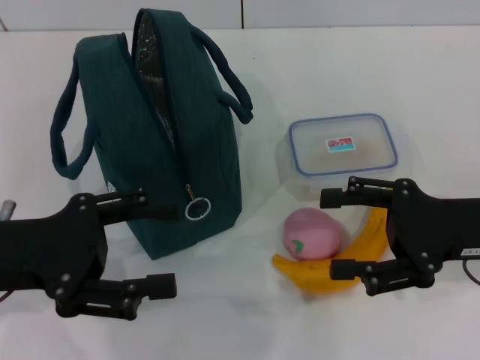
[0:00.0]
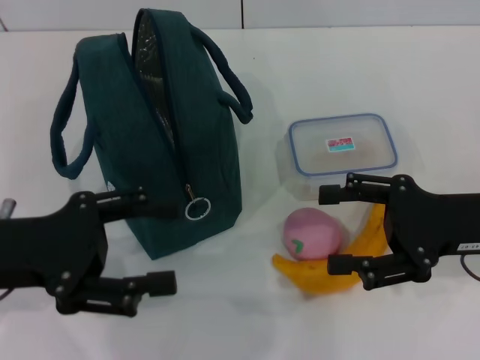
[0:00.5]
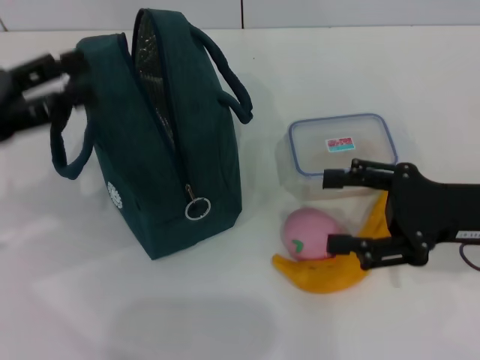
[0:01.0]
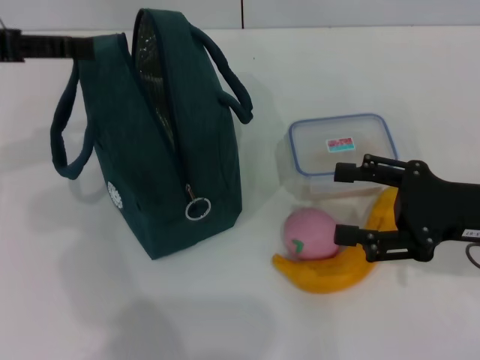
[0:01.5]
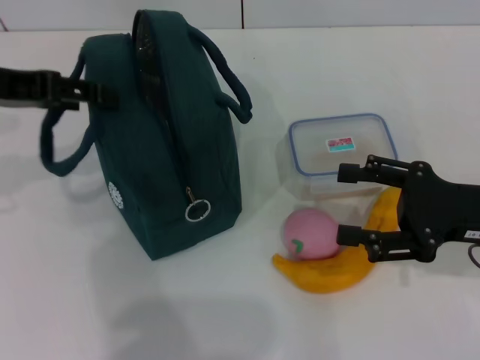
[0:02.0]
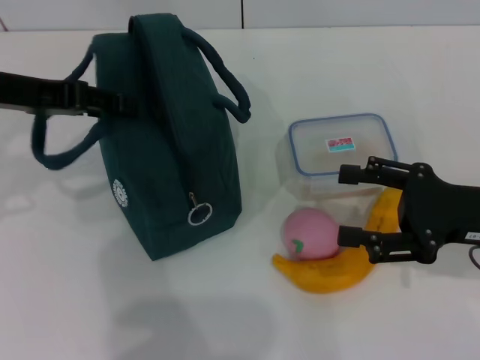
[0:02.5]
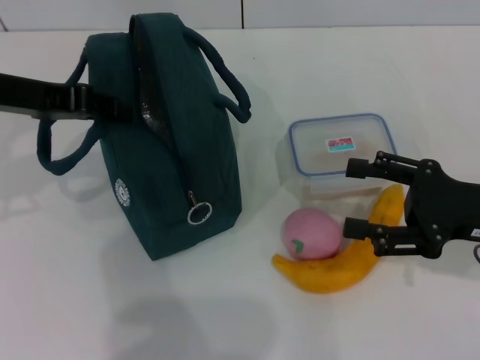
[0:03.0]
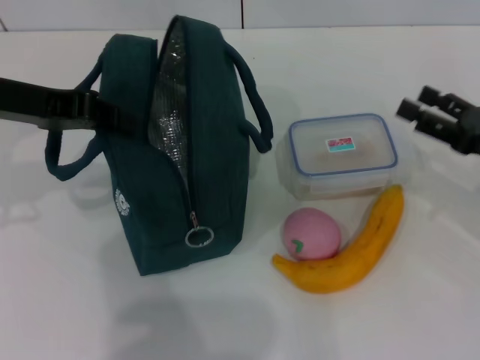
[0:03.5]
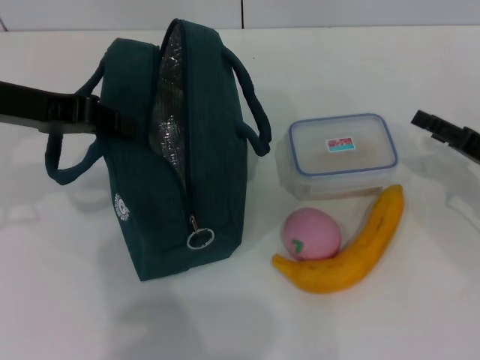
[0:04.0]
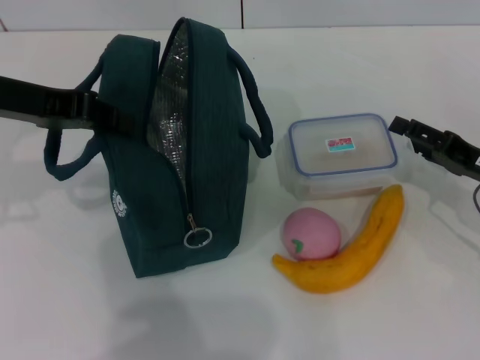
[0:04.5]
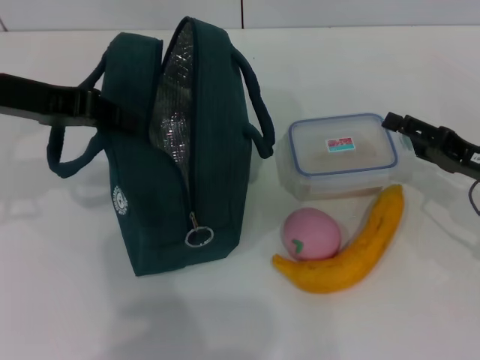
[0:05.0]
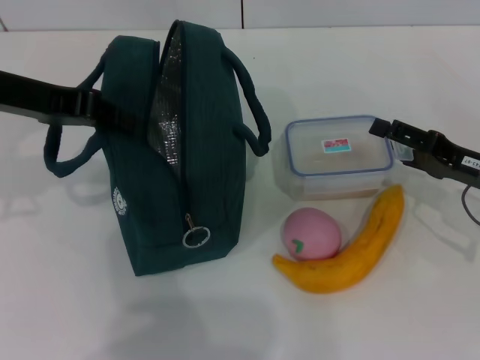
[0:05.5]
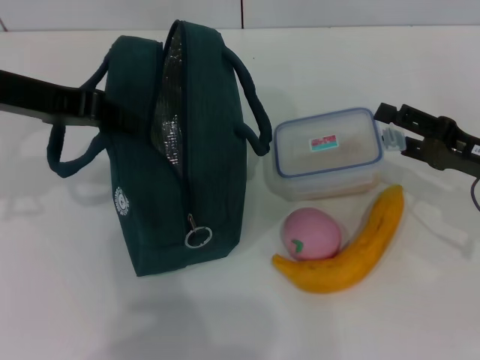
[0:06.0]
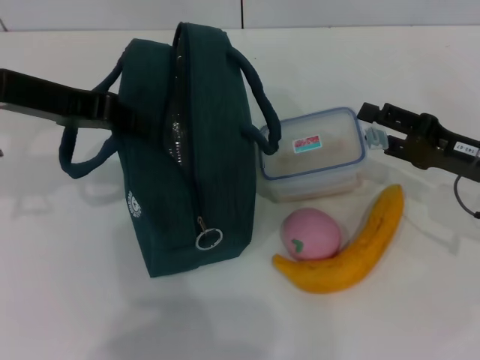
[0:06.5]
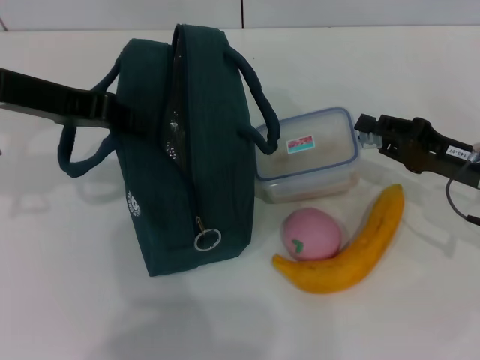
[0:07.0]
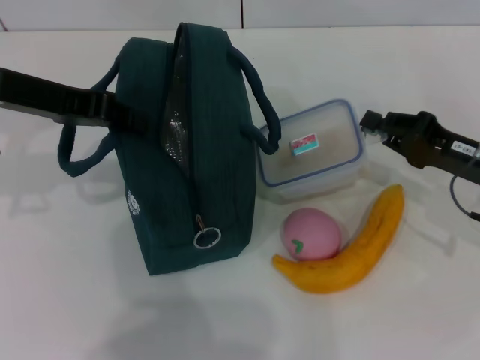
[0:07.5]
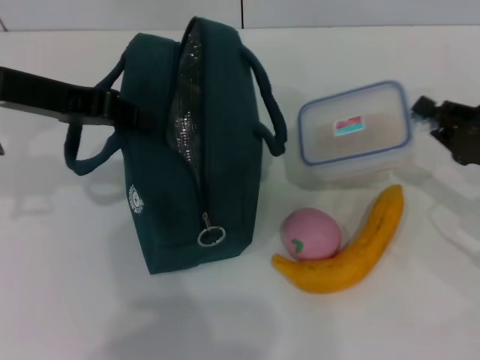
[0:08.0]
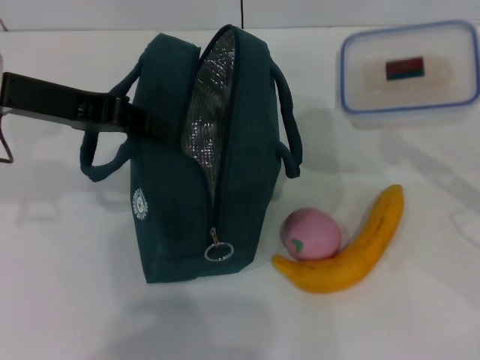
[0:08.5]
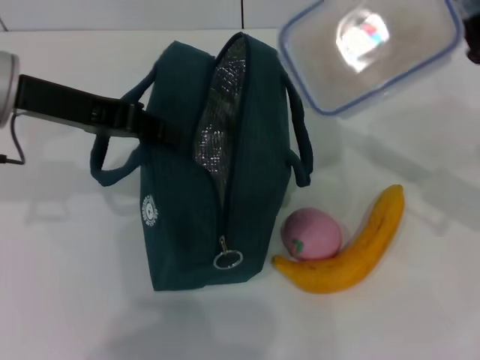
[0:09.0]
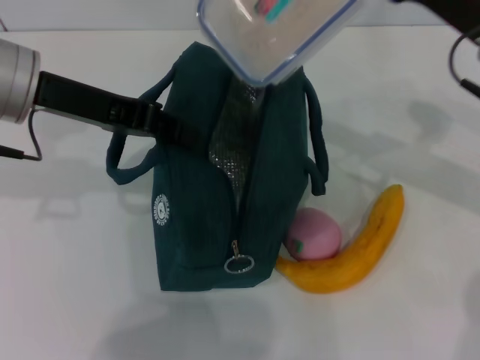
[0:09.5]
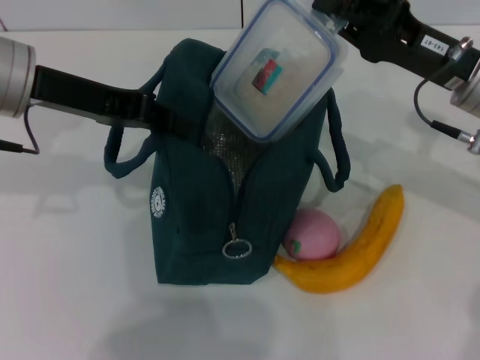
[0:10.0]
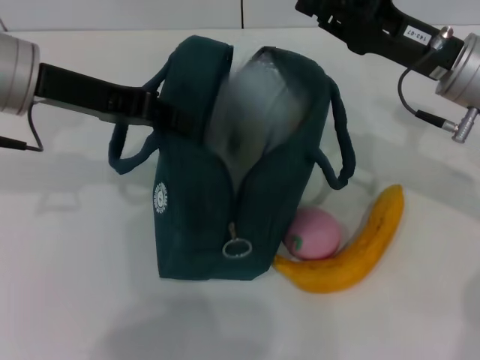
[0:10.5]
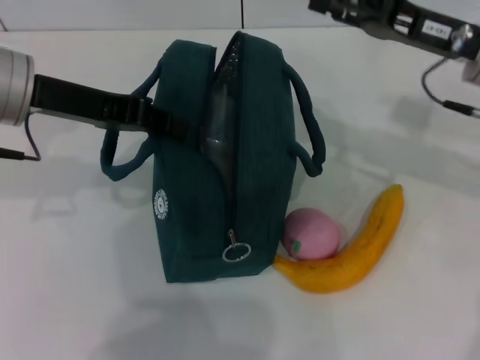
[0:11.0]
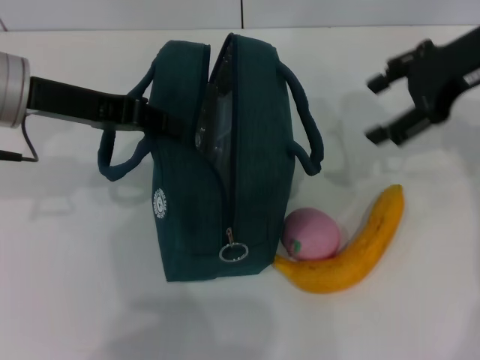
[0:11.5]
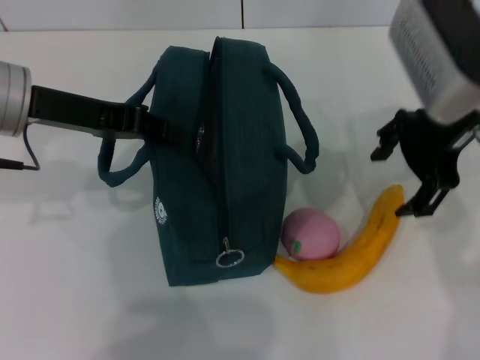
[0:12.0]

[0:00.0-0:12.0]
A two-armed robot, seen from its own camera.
Step, 0:00.0 to 0:03.0: Hold the lunch bag with your left hand.
Step, 0:03.5 to 0:07.0: Pick up the lunch box with your right hand.
Step, 0:07.5 to 0:10.5: Place the lunch box into the lunch bag with your right hand.
0:00.0 to 0:02.0: The left gripper heads forward and upward, covering approximately 15 cm.
0:02.0 to 0:04.0: The right gripper shifts about 10 cm to the right and downward, while the left gripper closes up.
0:06.0 to 0:08.0: The right gripper closes its fingers.
0:08.0 to 0:10.0: The right gripper goes about 15 cm to the left, upward and forward.
0:10.0 to 0:12.0: The right gripper heads upward, covering approximately 10 cm, and opens.

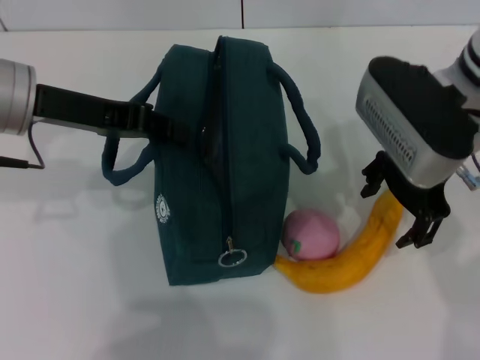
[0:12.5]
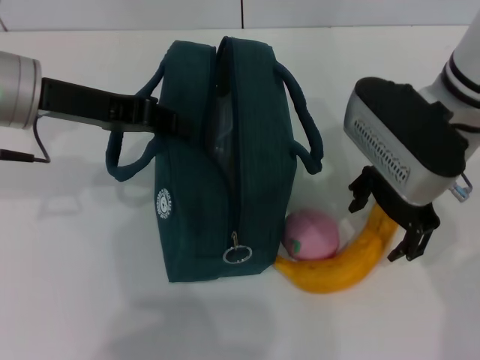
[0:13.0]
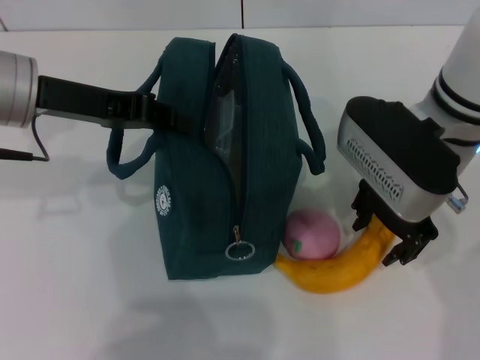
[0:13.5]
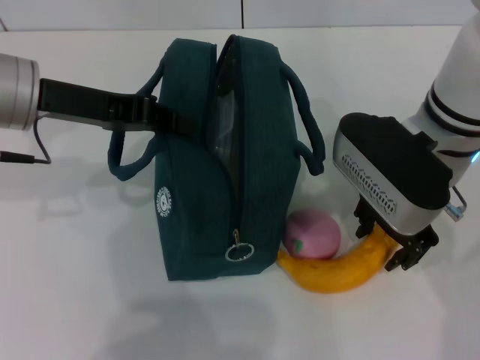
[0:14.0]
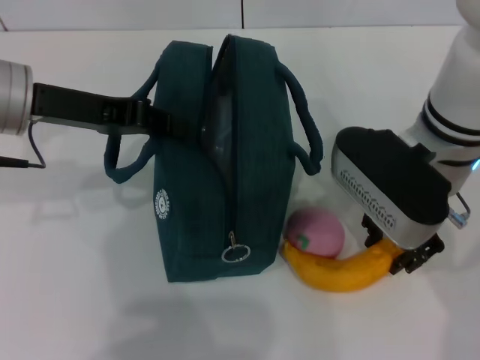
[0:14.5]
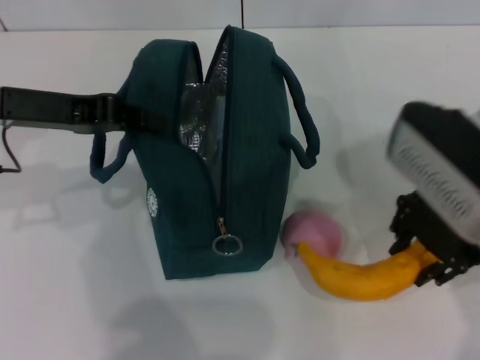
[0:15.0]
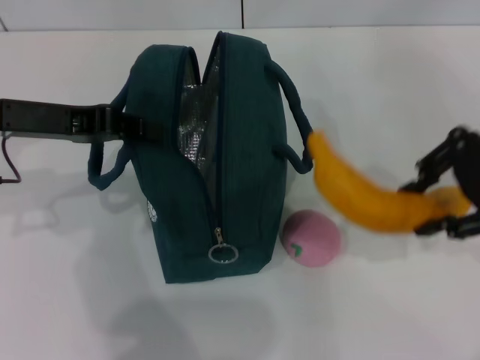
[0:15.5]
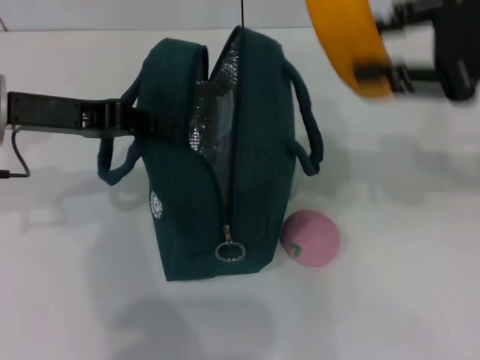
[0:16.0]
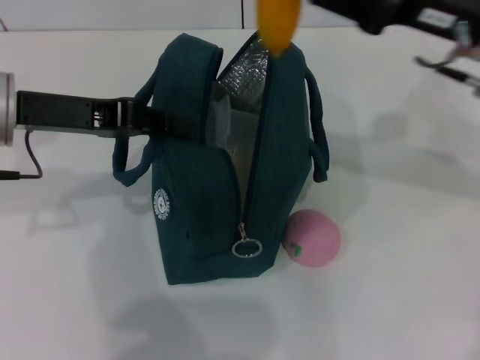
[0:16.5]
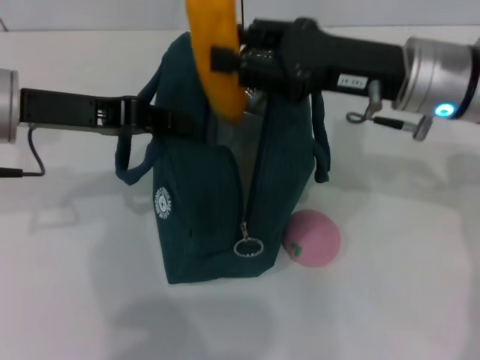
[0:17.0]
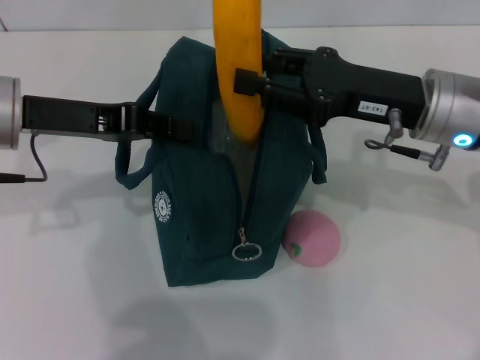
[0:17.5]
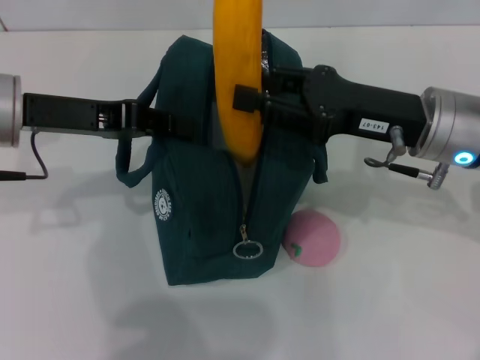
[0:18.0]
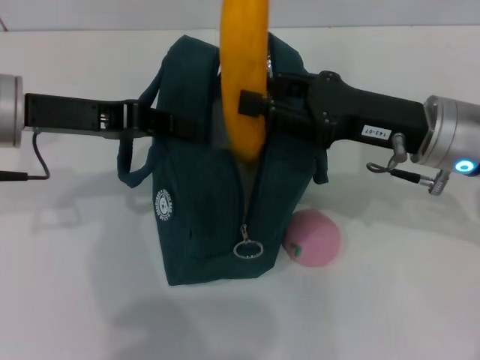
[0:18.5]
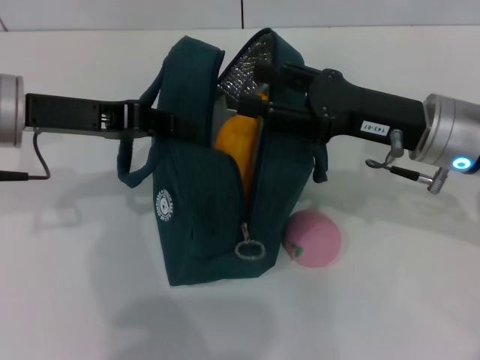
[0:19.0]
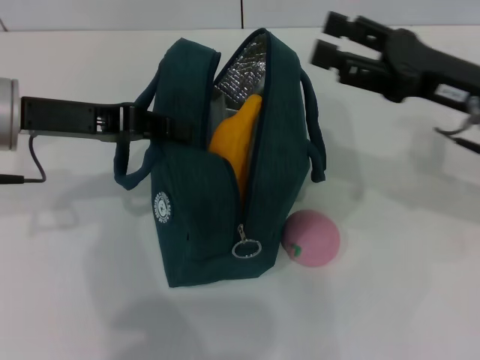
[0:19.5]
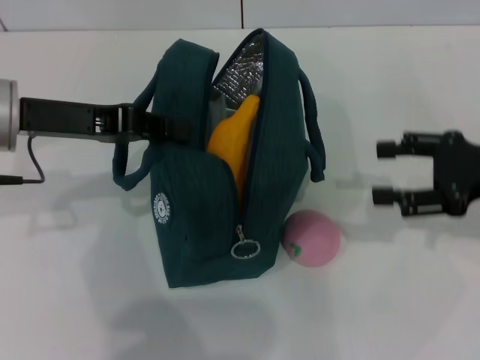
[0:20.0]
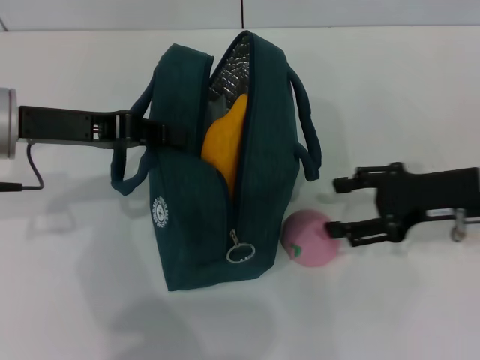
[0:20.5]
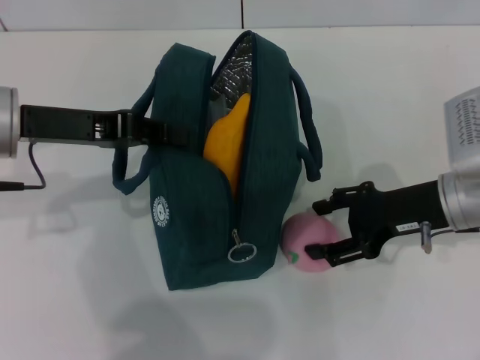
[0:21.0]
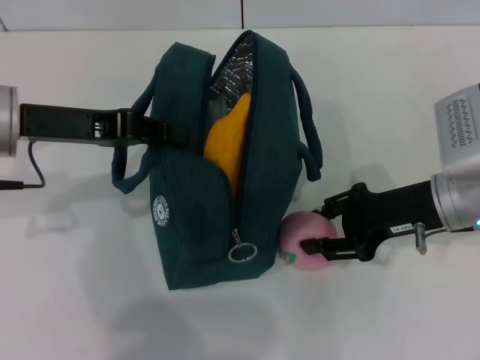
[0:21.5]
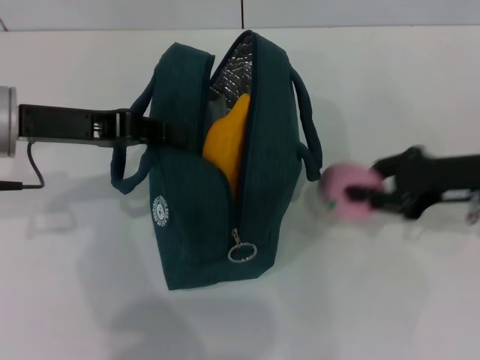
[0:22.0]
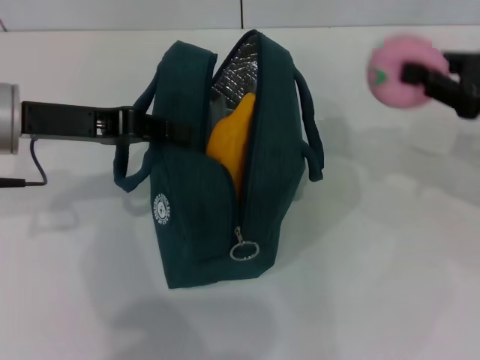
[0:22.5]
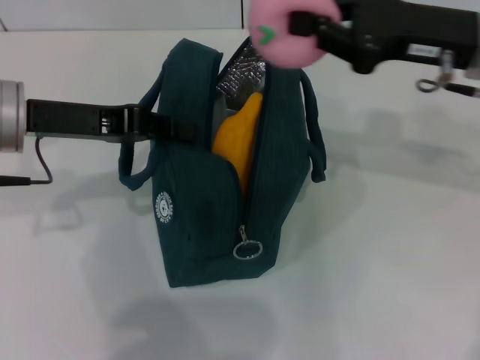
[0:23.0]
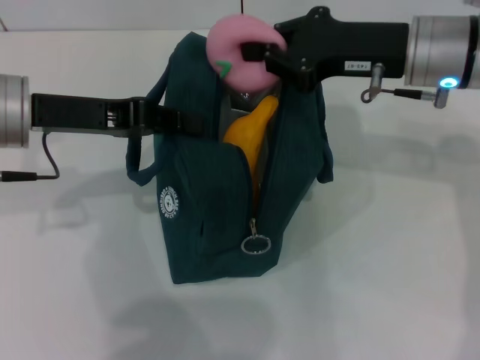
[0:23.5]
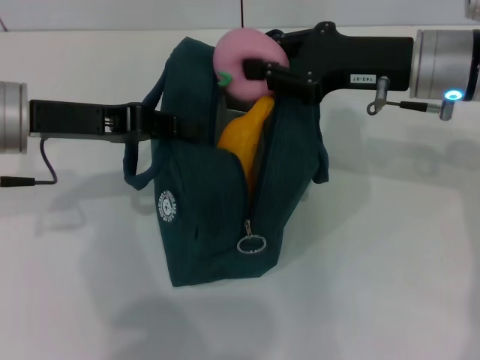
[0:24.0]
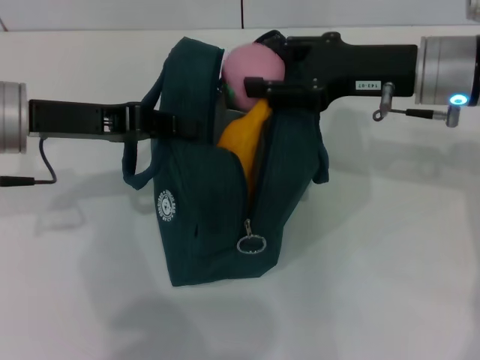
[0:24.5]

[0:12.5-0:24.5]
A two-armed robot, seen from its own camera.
Step, 0:14.5 to 0:19.0: Put the banana into the lunch bag with your right hand.
Step, 0:19.5 to 0:21.5: Grab the peach with your right hand.
0:12.5 to 0:14.5: The right gripper closes up.
0:14.5 to 0:16.5: The right gripper travels to the right by approximately 5 cm.
0:16.5 to 0:18.5: The right gripper moves downward, approximately 10 cm.
0:18.5 to 0:20.5: The right gripper heads to the right, covering roughly 5 cm, and opens up.
0:20.5 to 0:22.5: The right gripper shifts roughly 10 cm upward and to the right, and closes its fingers.
0:22.5 to 0:24.5: The right gripper is displaced to the left by approximately 15 cm.

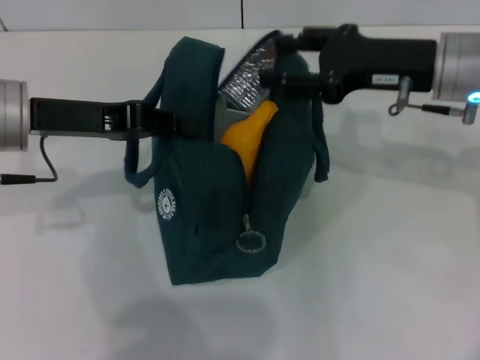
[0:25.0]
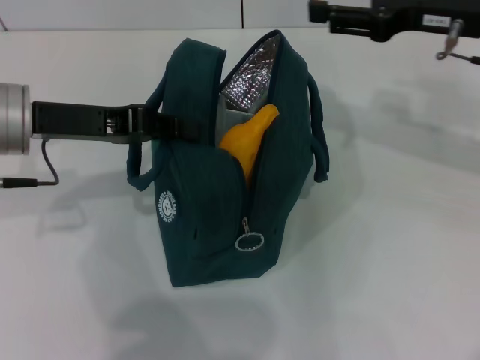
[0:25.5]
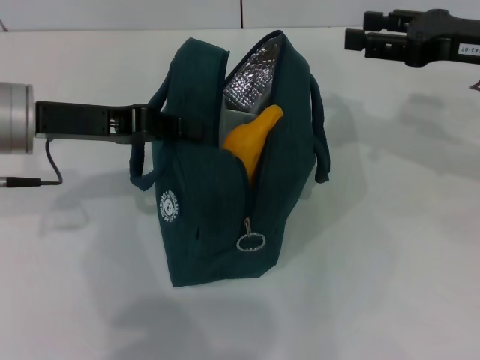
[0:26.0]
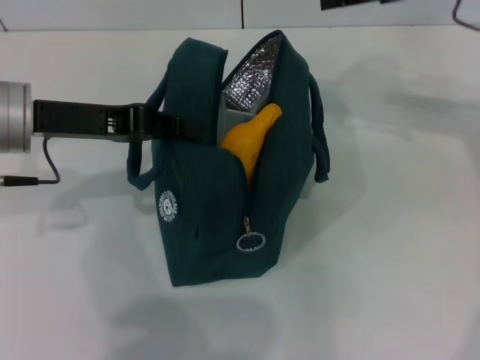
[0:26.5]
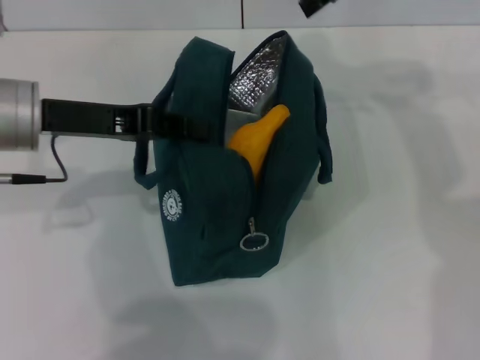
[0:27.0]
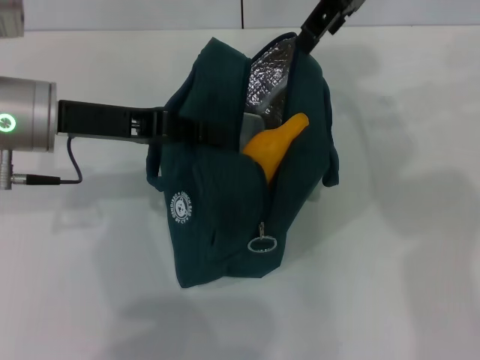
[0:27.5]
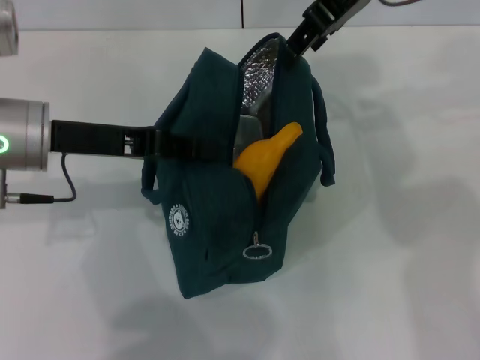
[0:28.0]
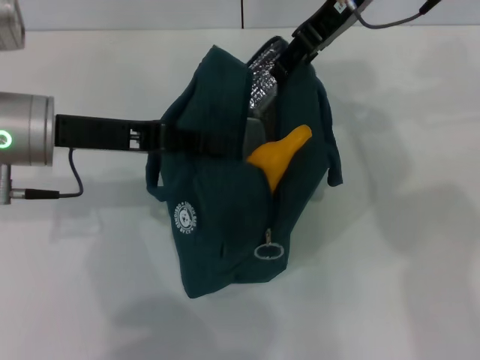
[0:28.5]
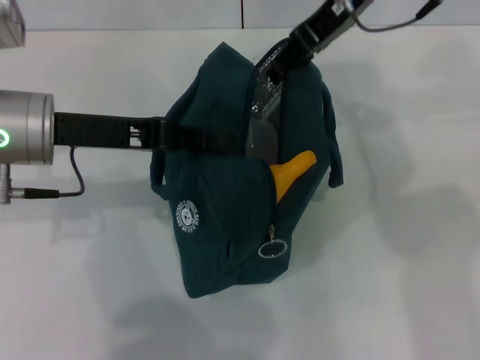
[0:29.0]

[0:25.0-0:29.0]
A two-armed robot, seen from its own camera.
0:25.0 to 0:27.0: The right gripper goes some 15 cm upward and forward.
0:27.0 to 0:29.0: The right gripper moves to the left, approximately 5 cm.
